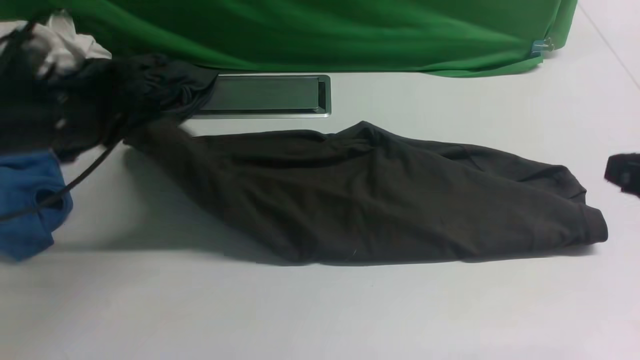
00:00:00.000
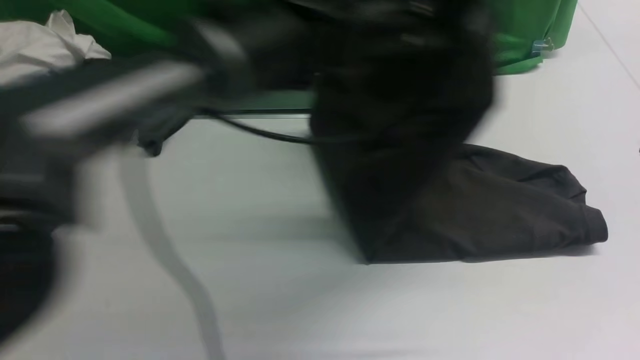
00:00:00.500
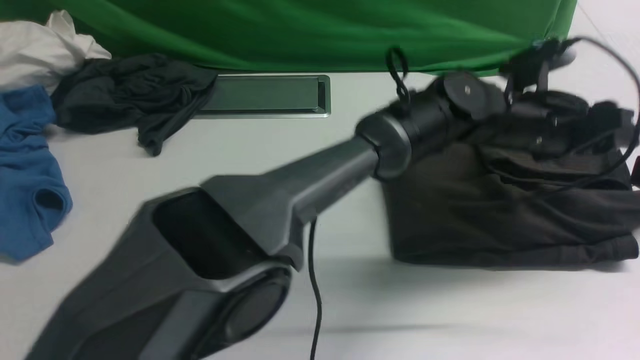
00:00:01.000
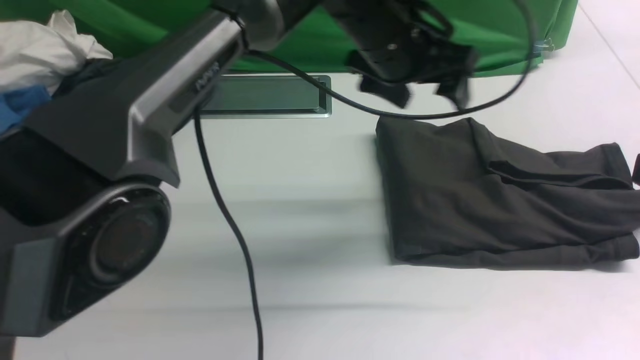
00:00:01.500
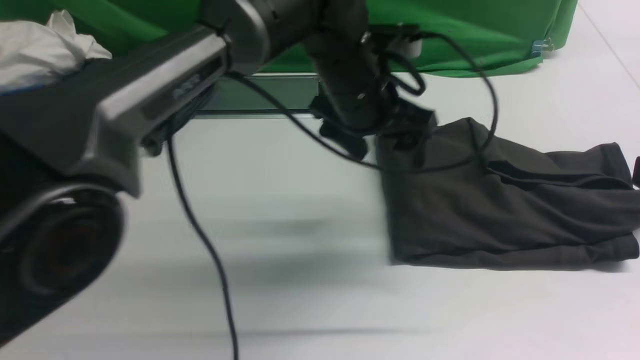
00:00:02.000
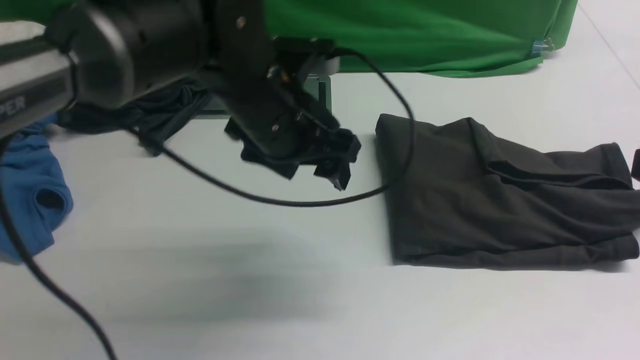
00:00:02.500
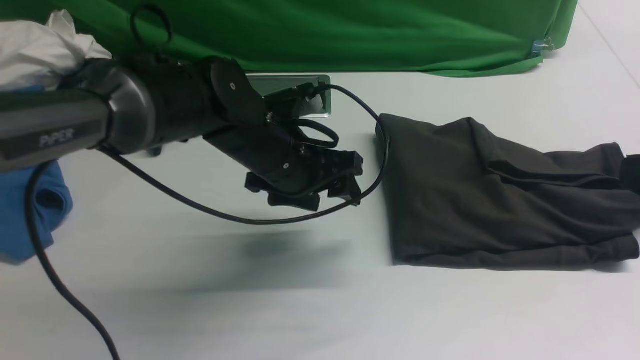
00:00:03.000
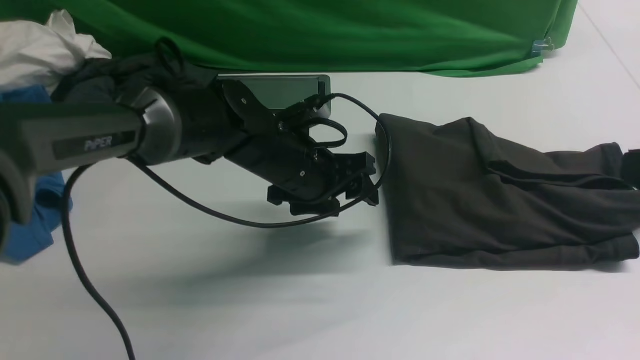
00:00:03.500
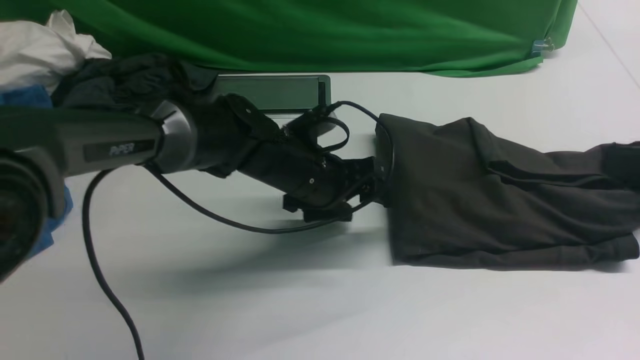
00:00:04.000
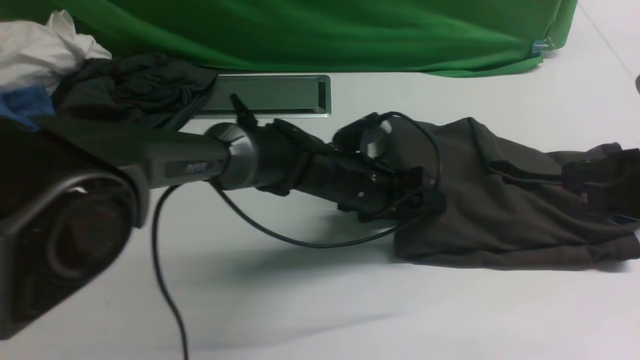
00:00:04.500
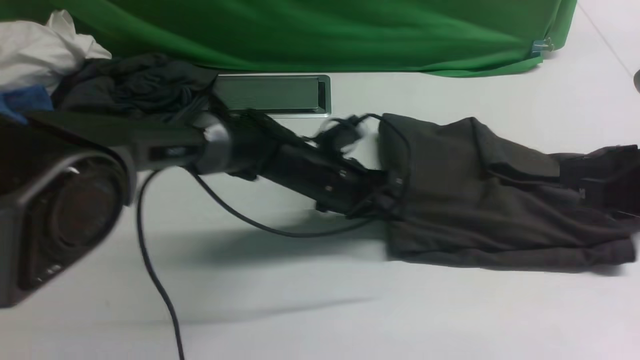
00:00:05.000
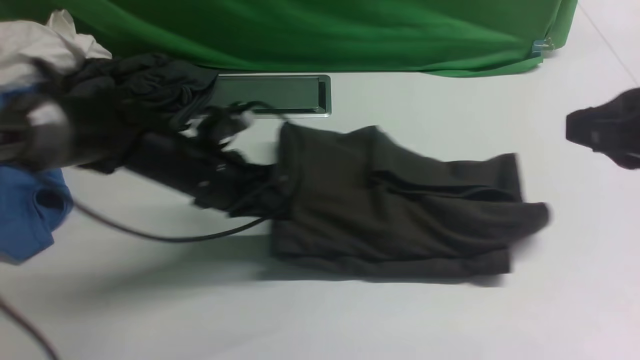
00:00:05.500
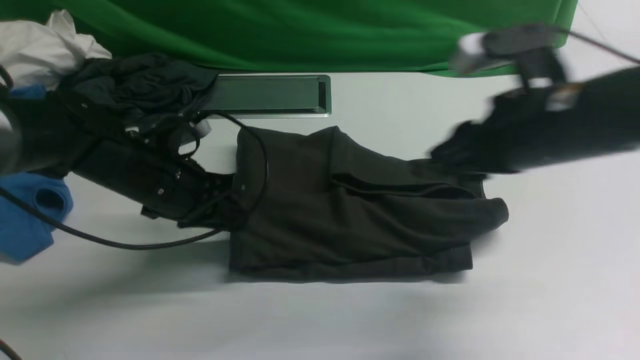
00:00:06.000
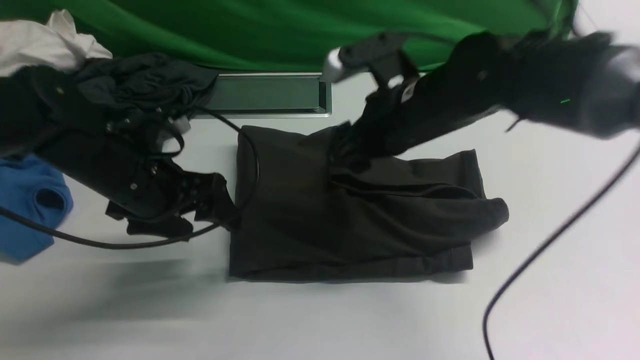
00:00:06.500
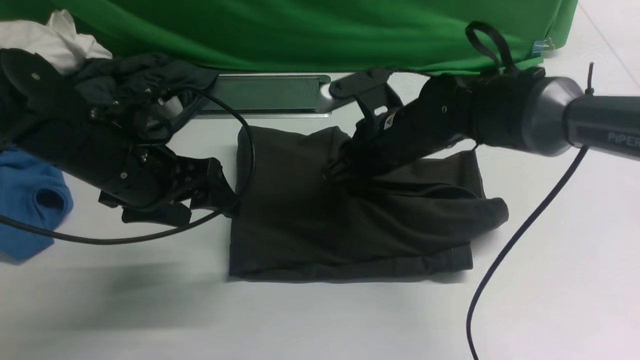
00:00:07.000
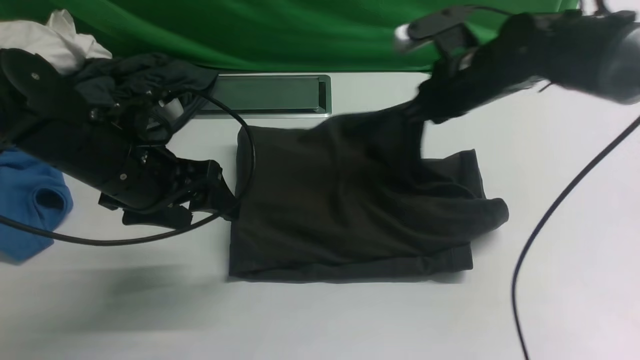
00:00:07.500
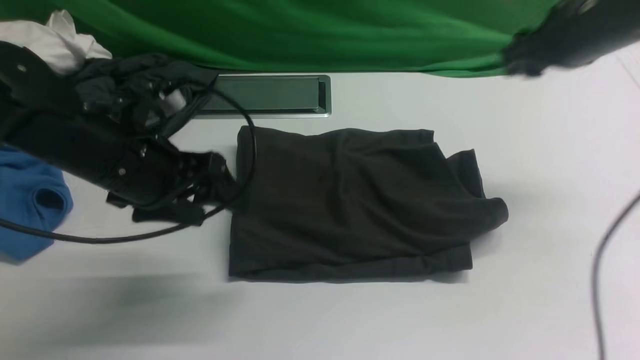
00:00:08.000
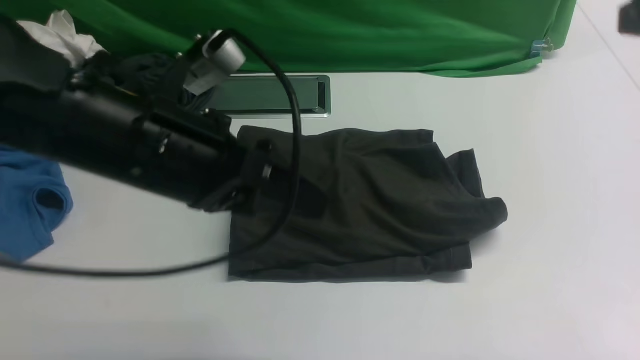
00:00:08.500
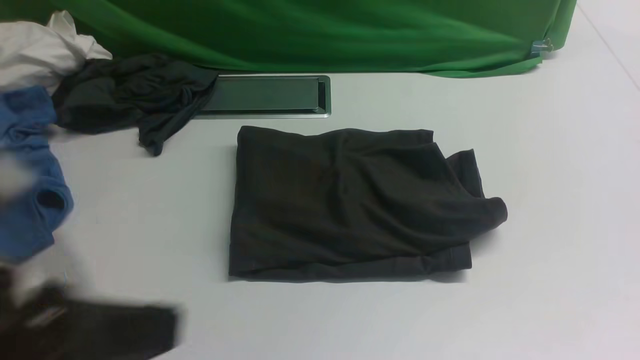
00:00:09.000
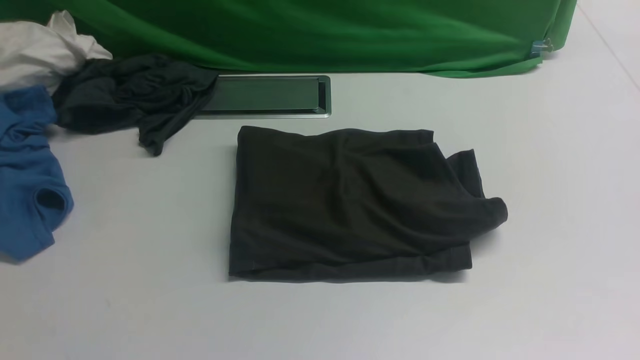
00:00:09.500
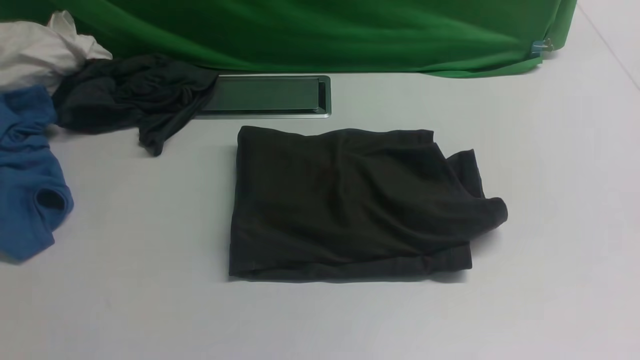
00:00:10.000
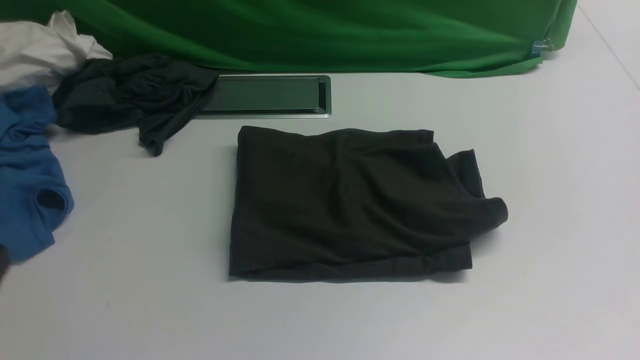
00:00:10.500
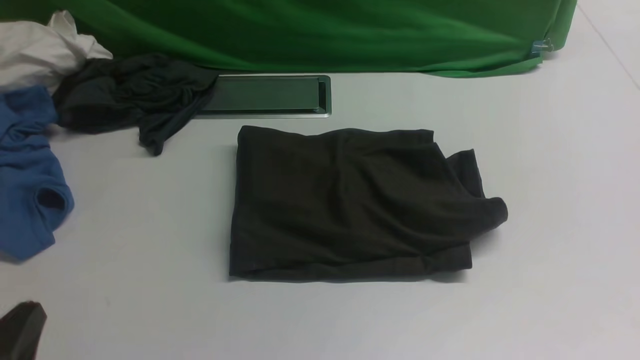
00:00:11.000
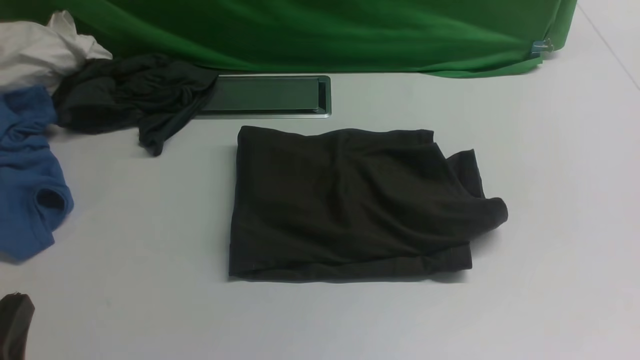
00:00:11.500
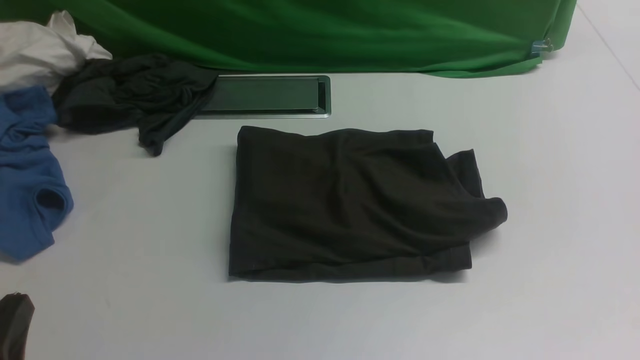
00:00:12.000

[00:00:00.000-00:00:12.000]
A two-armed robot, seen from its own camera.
Step, 00:00:00.000 to 00:00:01.000: Drag the left edge of the fabric to the left with your left arm and fold it to the right edge.
00:00:00.000 to 00:00:02.000: The left gripper heads to the right, covering about 25 cm, and opens up; the right gripper opens its fingers.
00:00:02.000 to 00:00:04.000: The left gripper goes about 15 cm downward.
00:00:04.000 to 00:00:06.000: The left gripper moves to the left, approximately 15 cm, and closes its fingers. The right gripper moves forward and to the left, approximately 15 cm.
00:00:06.000 to 00:00:08.000: The right gripper travels forward and to the right by about 15 cm, and closes, then opens again. Meanwhile the left gripper travels upward by some 10 cm, and opens.
00:00:08.000 to 00:00:10.000: The grippers both shift backward by roughly 30 cm. The right gripper closes. Meanwhile the left gripper closes.
00:00:10.000 to 00:00:12.000: The left gripper goes approximately 15 cm downward and forward.

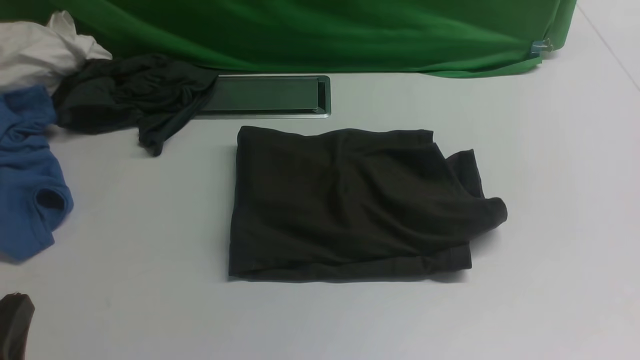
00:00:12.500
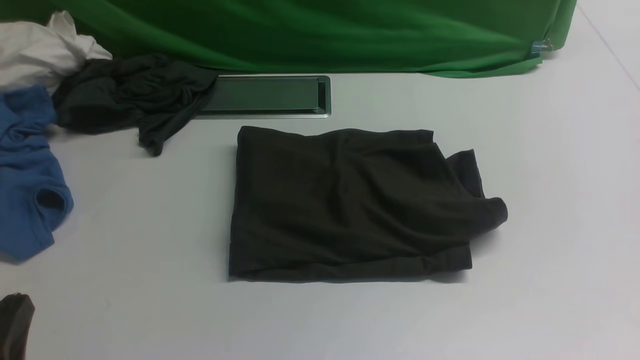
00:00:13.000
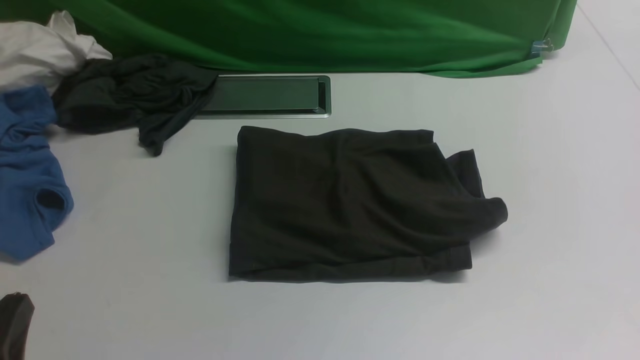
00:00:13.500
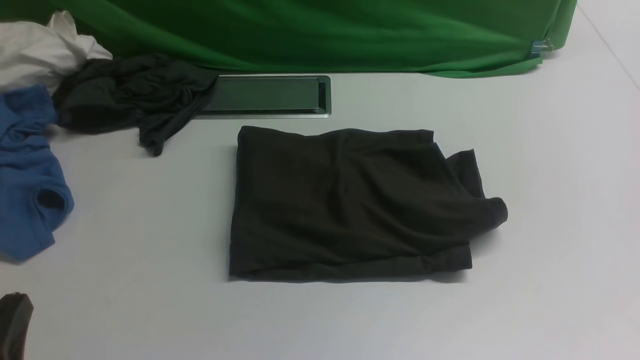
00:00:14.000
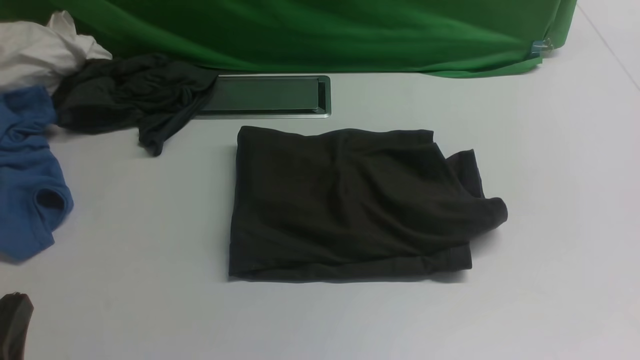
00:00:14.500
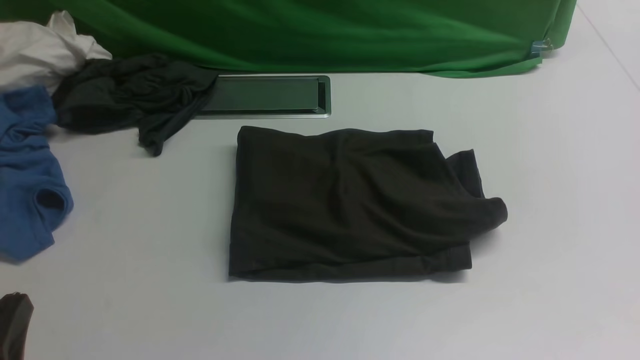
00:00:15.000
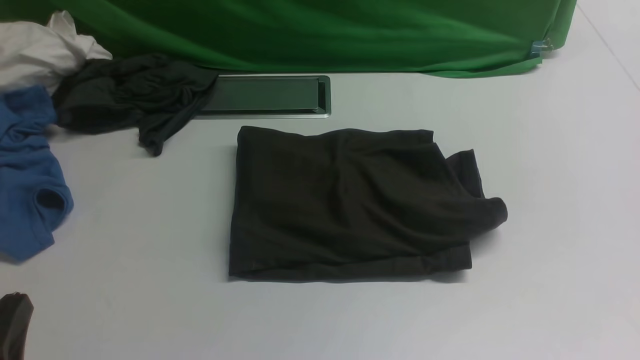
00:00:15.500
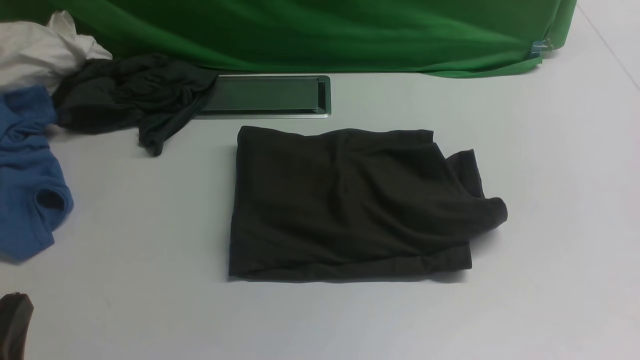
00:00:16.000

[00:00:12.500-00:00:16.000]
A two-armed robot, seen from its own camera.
00:00:14.500 to 00:00:16.000: Neither gripper changes place.

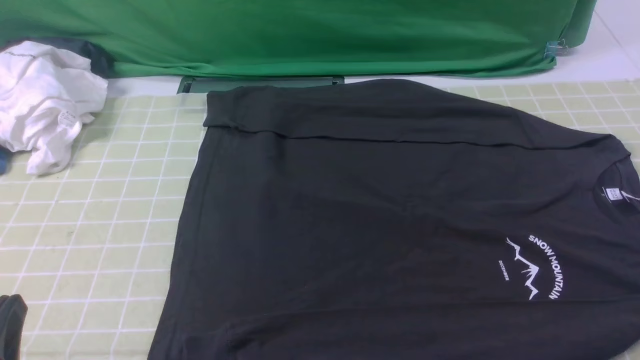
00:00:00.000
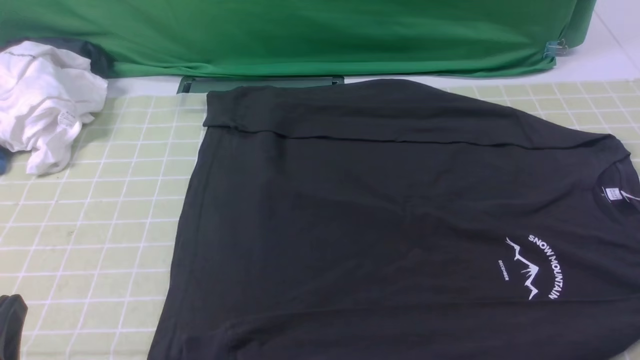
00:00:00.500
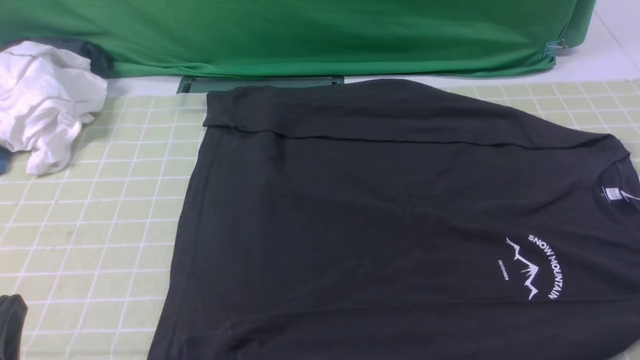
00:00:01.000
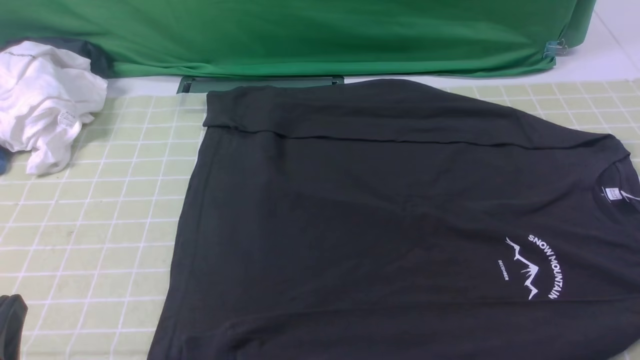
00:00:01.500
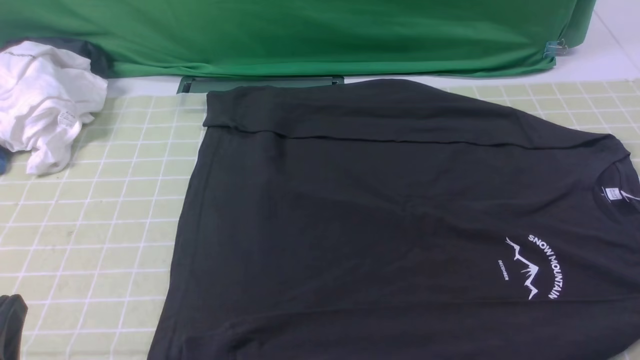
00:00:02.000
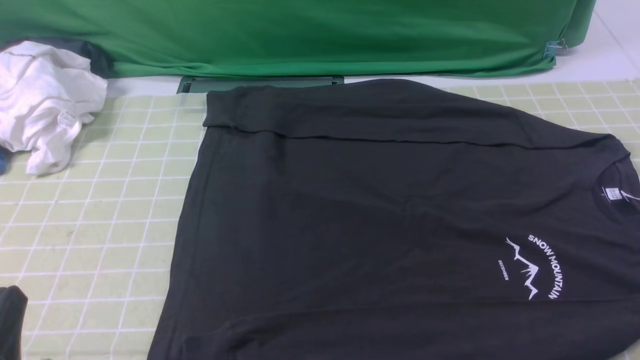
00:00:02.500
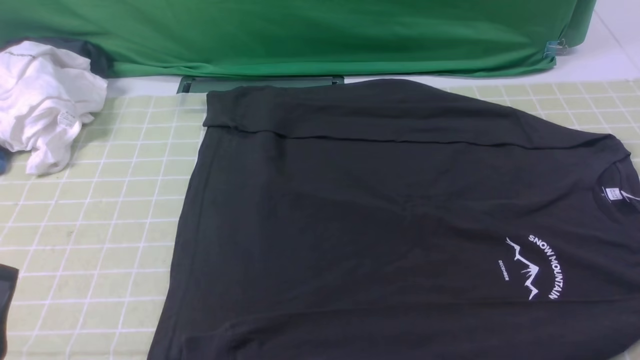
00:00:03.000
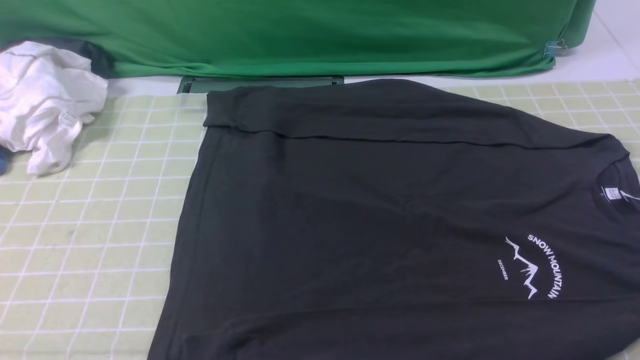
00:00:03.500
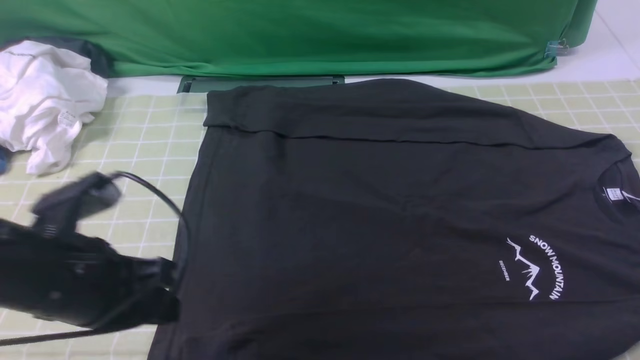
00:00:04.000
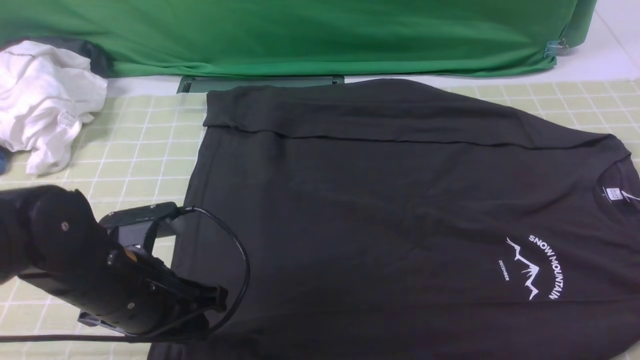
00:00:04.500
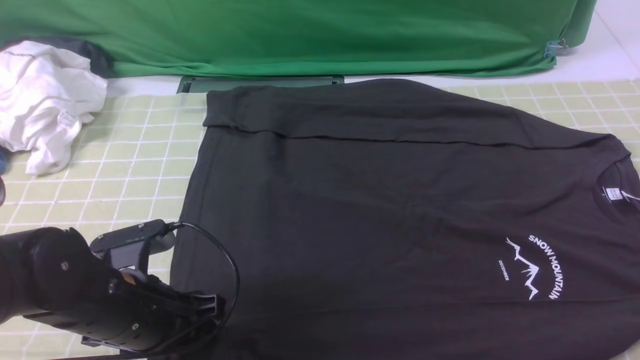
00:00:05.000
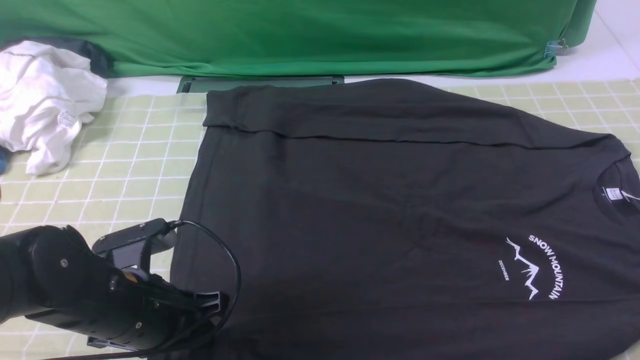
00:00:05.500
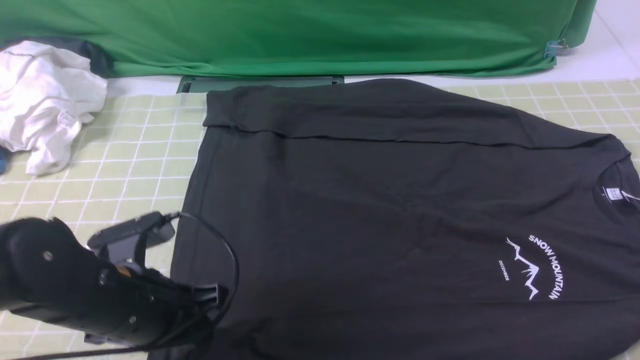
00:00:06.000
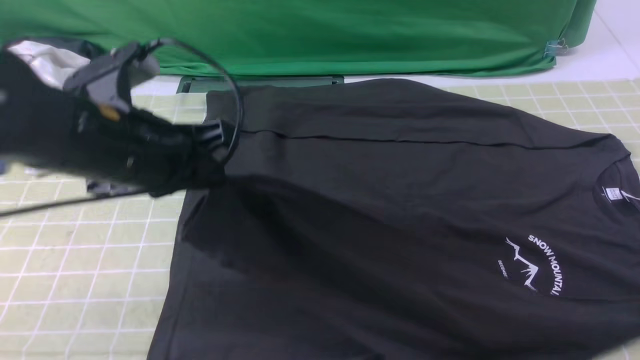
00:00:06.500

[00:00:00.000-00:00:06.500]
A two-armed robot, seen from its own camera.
Step, 00:00:00.000 to 00:00:05.500: use the left arm to clamp the cuff closest to it.
00:00:00.000 to 00:00:02.000: The two grippers keep their place.
00:00:02.000 to 00:00:04.500: The left gripper travels forward and to the right by some 15 cm, goes upward and returns, some 15 cm each way, and opens.
00:00:04.500 to 00:00:06.500: The left gripper heads upward and forward, covering about 10 cm, and closes its fingers.
